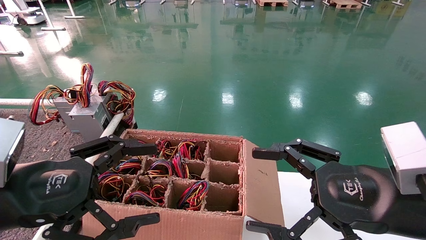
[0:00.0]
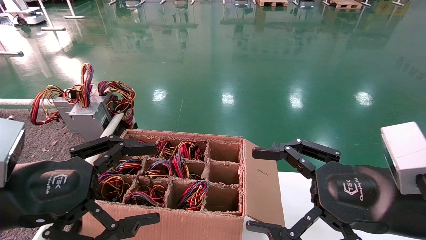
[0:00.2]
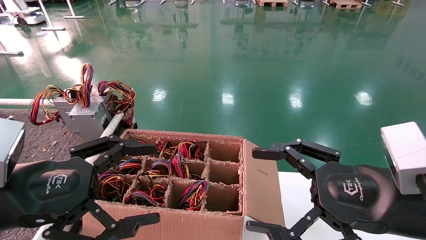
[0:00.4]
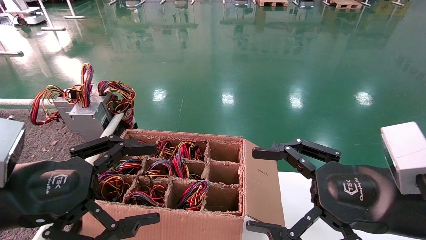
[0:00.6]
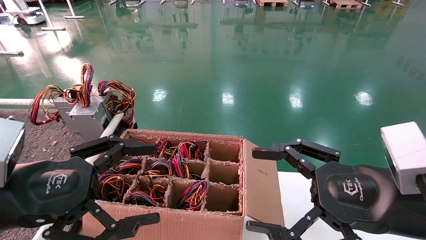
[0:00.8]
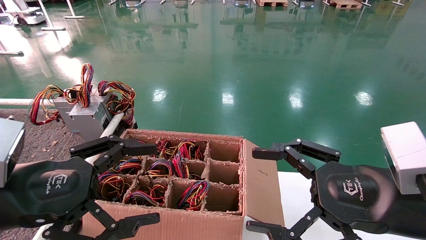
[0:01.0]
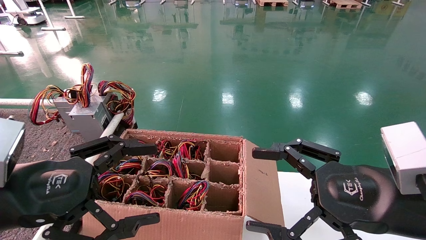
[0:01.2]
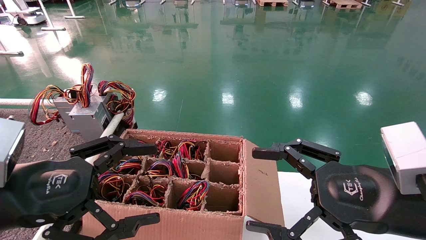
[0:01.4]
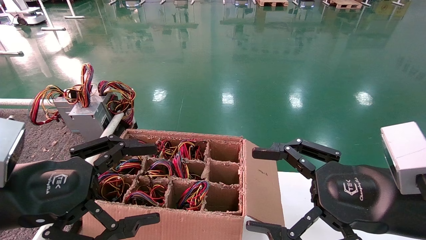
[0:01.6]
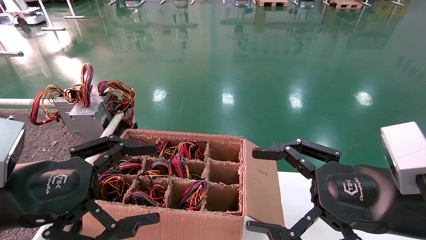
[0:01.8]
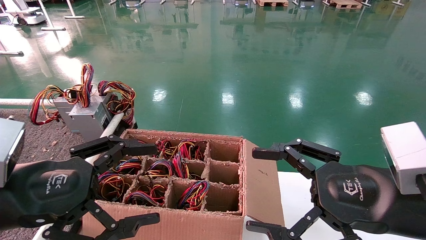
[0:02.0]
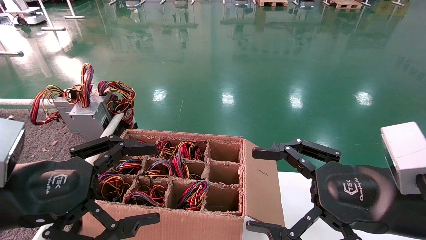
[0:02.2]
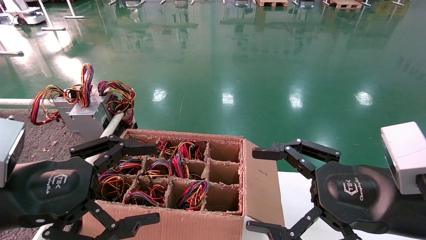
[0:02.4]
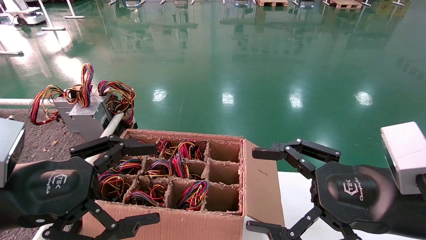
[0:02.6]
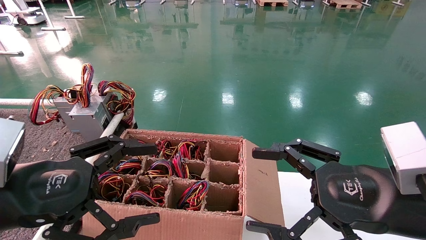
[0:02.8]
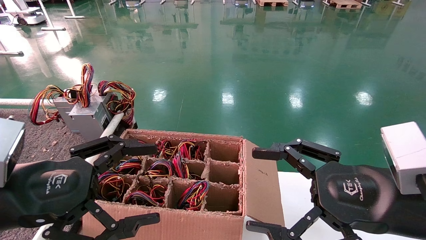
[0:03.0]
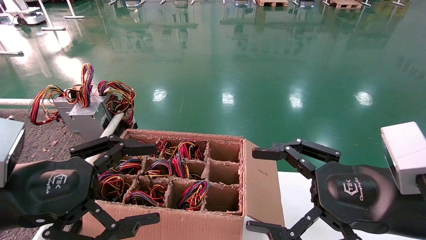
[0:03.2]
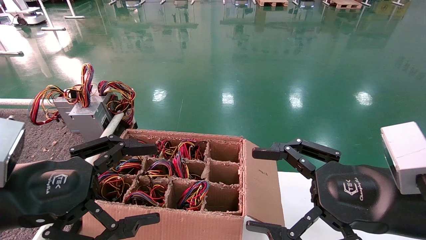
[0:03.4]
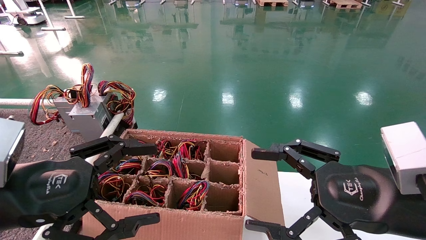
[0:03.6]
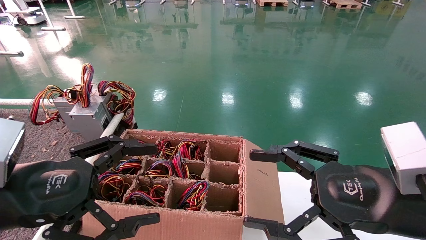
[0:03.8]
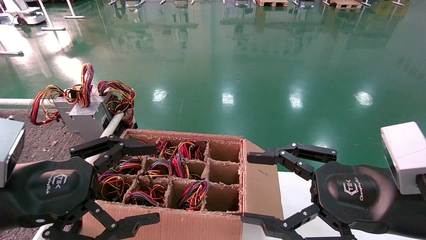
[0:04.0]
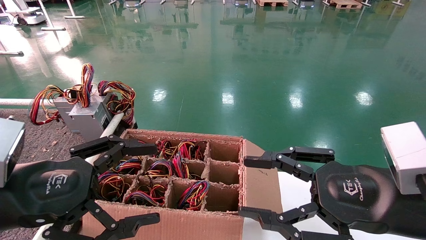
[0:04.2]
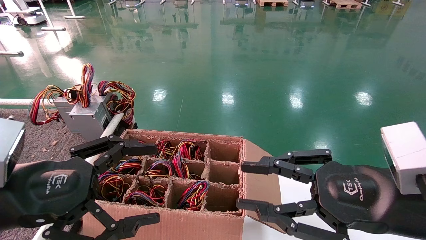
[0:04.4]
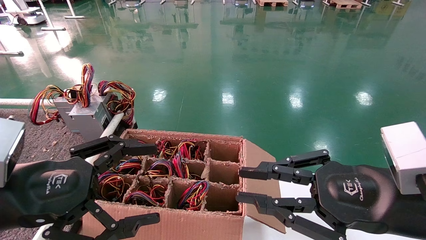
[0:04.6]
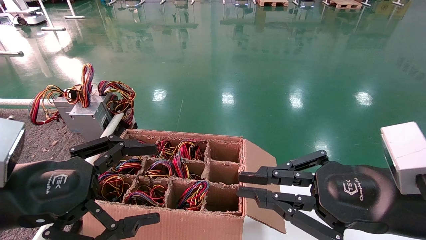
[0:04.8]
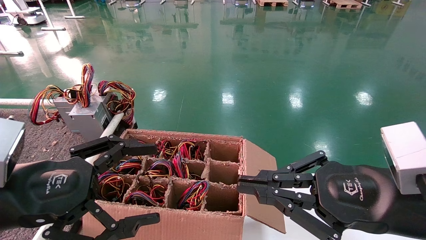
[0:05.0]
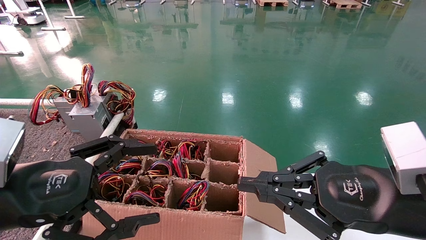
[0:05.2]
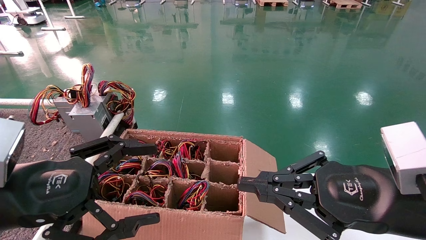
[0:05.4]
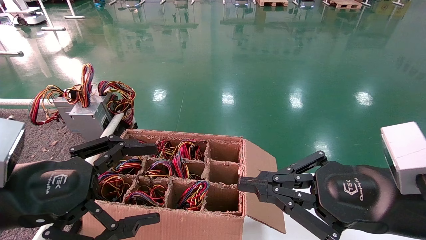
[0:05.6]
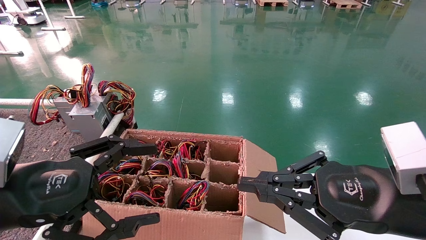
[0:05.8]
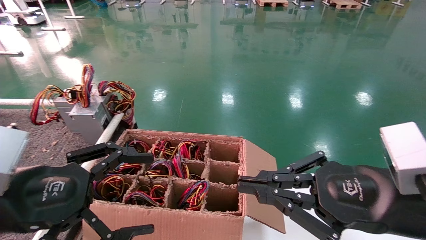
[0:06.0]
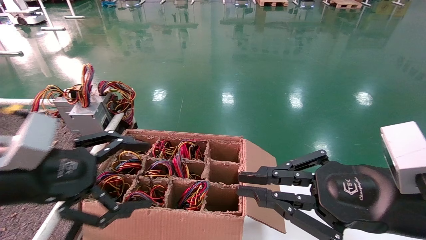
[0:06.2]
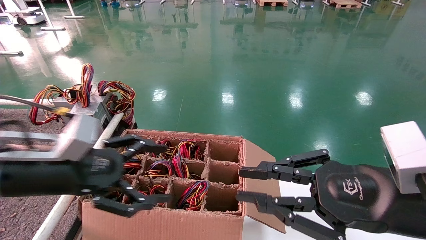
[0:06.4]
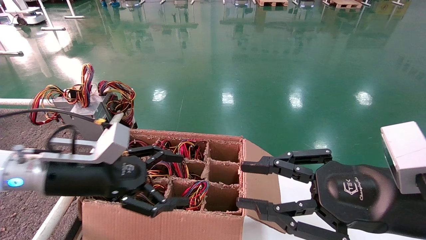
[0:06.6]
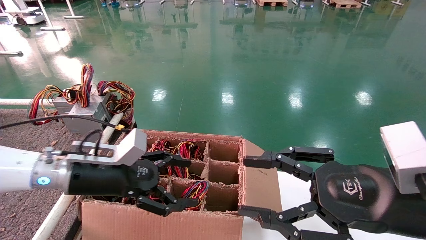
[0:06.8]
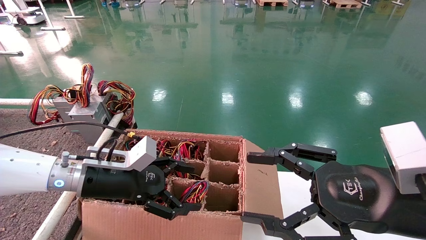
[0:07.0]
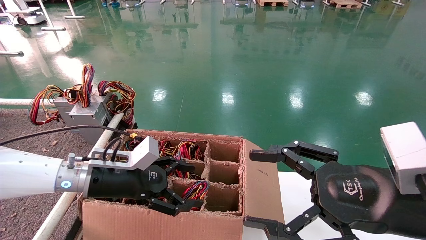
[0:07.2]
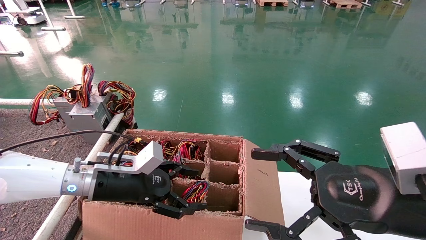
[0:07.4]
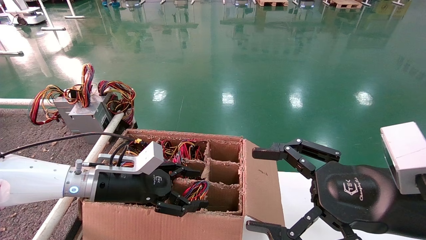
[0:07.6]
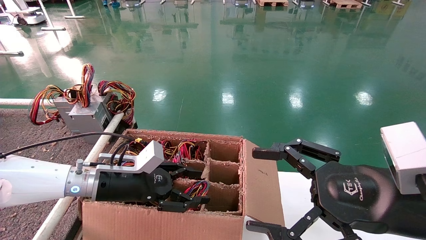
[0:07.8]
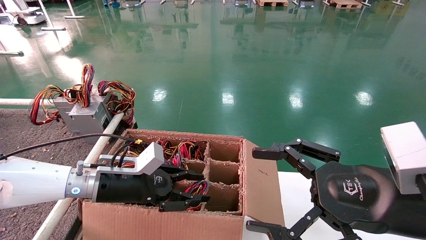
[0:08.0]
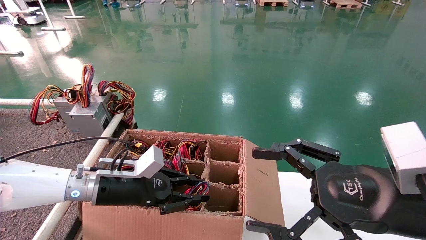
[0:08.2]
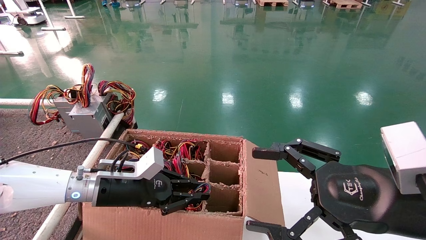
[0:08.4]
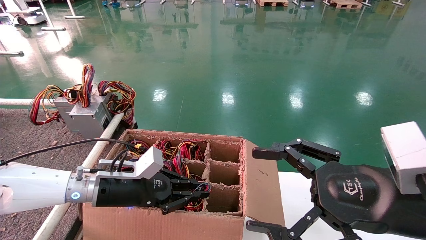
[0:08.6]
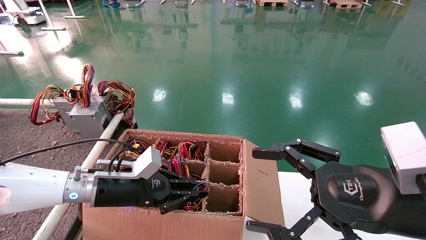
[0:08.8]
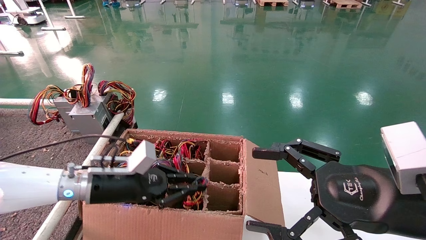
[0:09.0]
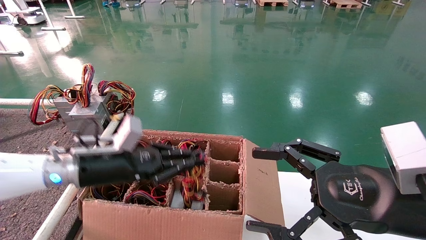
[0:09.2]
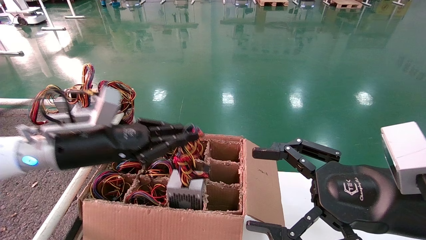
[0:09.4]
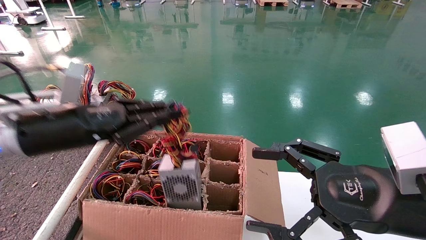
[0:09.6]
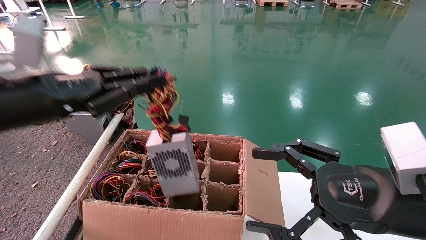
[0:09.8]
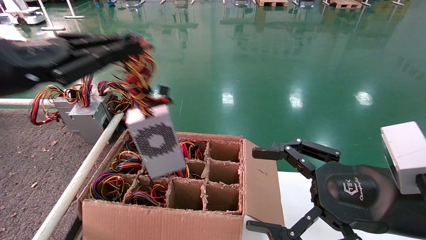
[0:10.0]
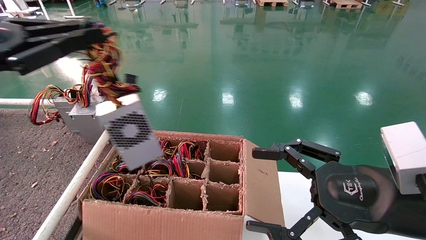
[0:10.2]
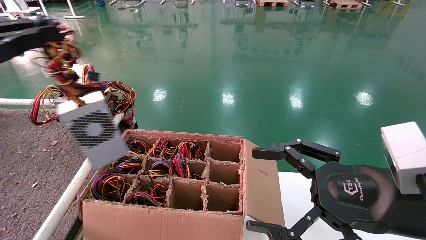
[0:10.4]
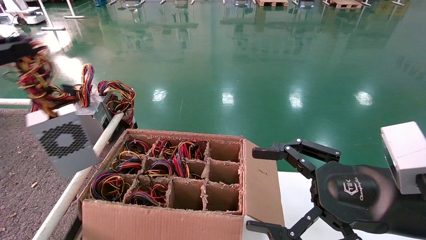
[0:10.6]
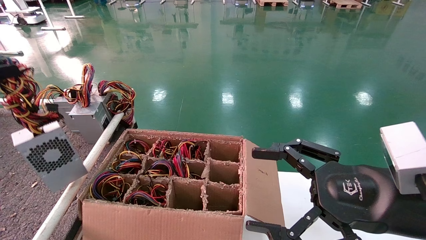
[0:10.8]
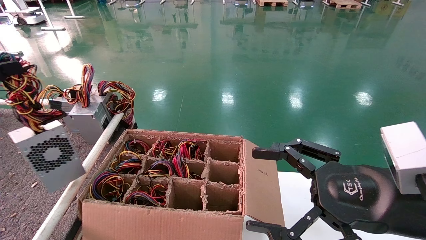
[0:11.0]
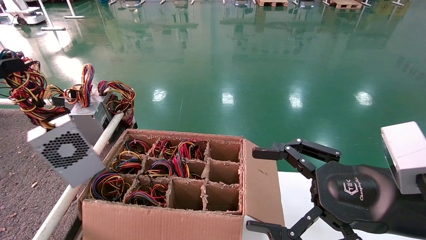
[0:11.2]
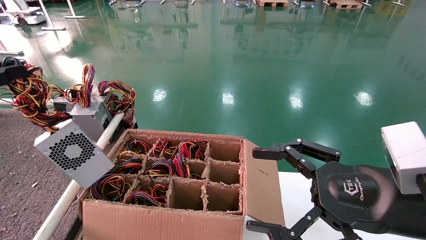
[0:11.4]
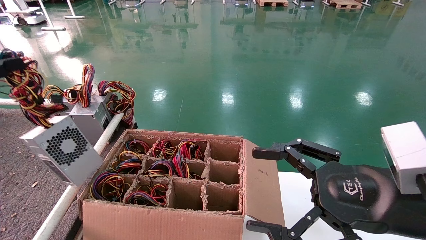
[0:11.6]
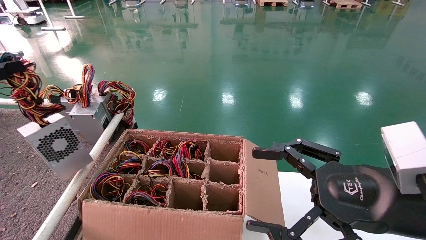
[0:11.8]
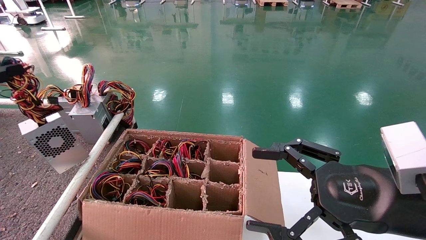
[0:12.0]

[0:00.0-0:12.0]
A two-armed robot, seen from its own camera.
Step, 0:06.4 to 0:09.2: Grab and lift the power supply from the large box.
0:00.0 to 0:03.0: Both grippers stay put.
0:03.0 to 0:04.4: The right gripper closes its fingers.
0:04.4 to 0:06.0: The right gripper closes.
0:06.0 to 0:07.6: The left gripper shifts roughly 20 cm forward, downward and to the right; the right gripper opens.
0:07.6 to 0:09.0: The left gripper closes up.
0:09.0 to 0:10.4: The left gripper moves upward, to the left and backward, approximately 30 cm.
0:10.4 to 0:12.0: The left gripper moves to the left, about 10 cm.

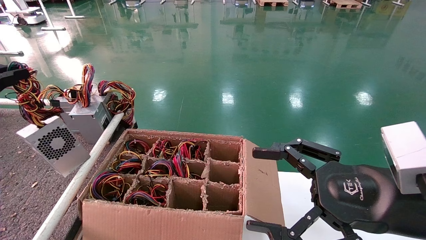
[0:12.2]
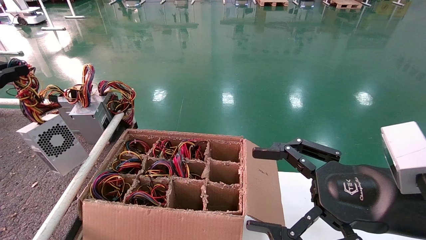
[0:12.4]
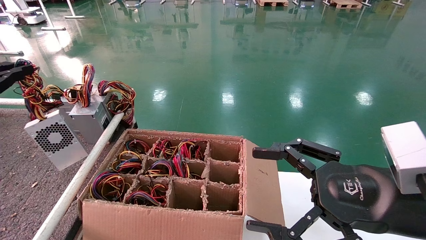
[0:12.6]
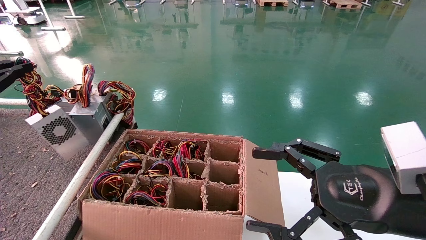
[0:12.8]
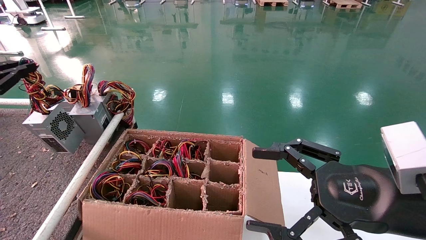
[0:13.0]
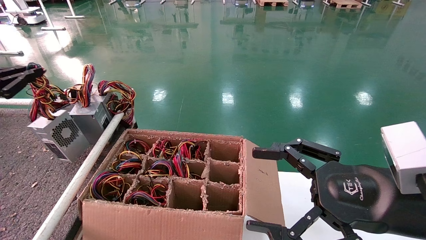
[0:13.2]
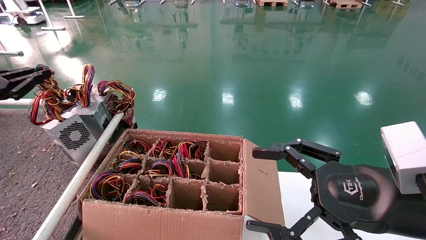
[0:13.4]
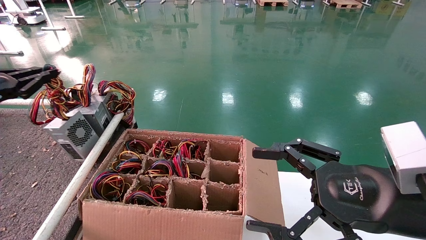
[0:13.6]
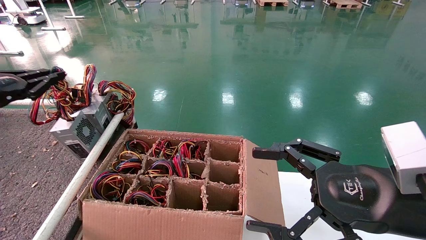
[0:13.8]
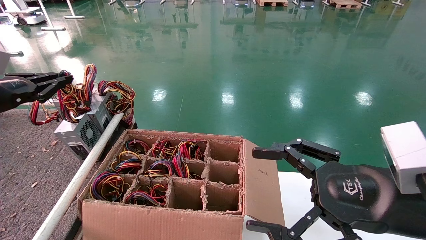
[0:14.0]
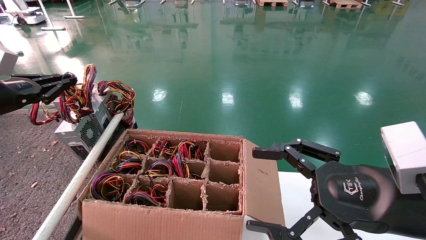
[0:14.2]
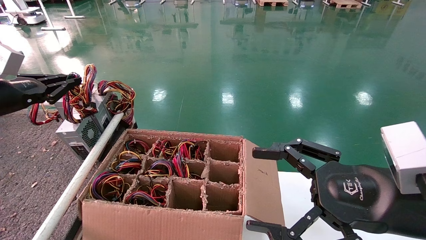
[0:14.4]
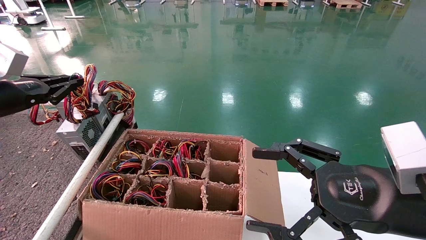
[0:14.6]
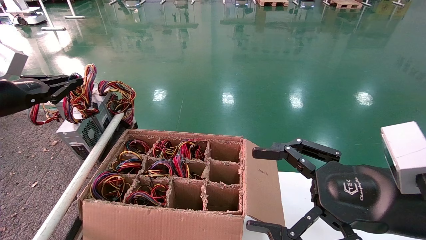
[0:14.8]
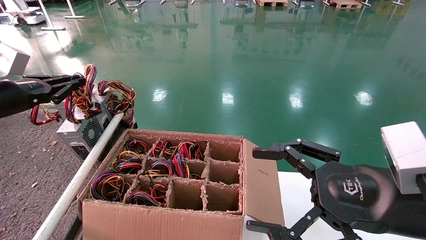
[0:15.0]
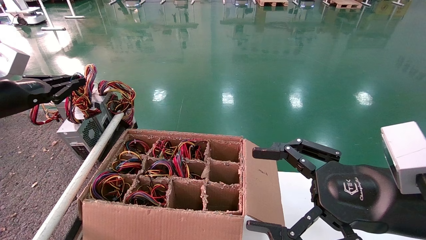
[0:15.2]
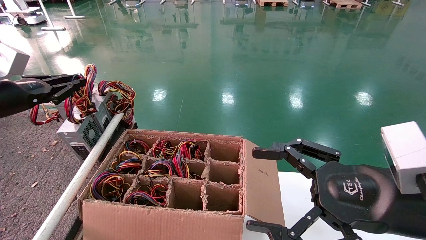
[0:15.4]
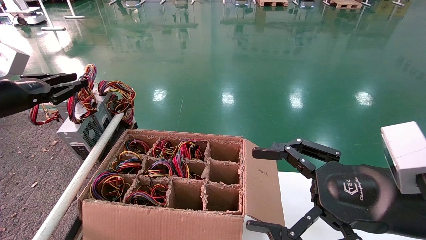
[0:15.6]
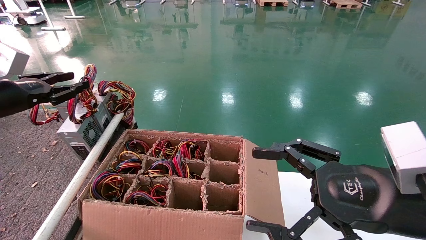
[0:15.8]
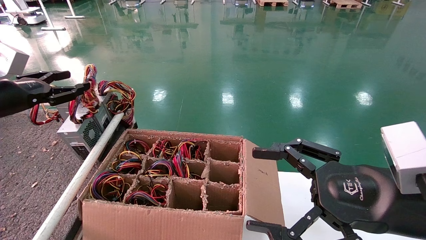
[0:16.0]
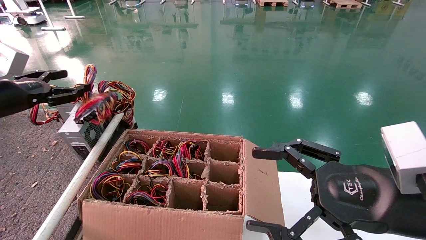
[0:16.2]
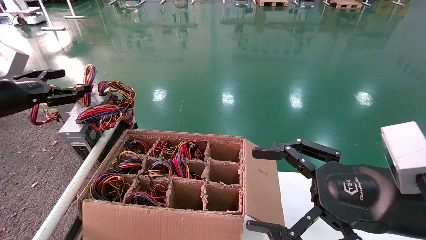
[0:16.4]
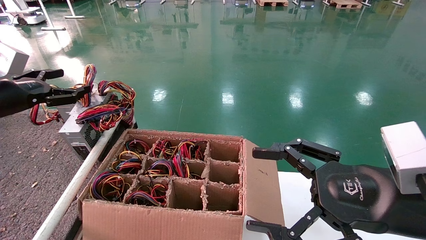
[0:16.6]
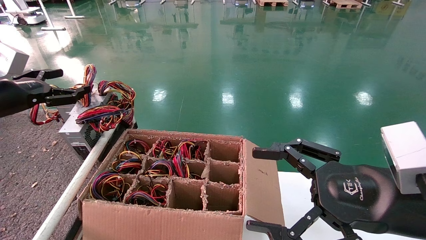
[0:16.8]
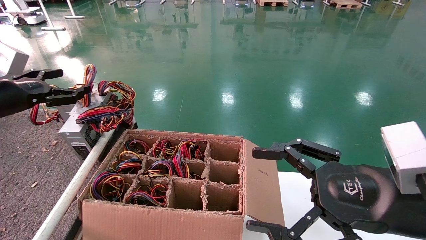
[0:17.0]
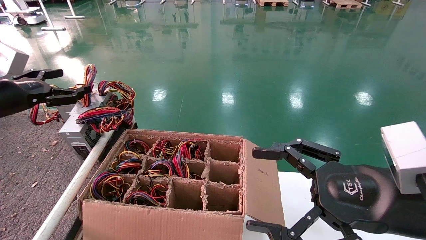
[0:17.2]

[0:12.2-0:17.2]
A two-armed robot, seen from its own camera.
Step, 0:12.2 to 0:15.8: Place the power supply on the operating table.
0:12.2 to 0:13.8: The left gripper shifts some 10 cm forward.
0:13.8 to 0:15.6: The grippers make only small movements.
0:15.6 to 0:17.2: The left gripper opens its fingers.
